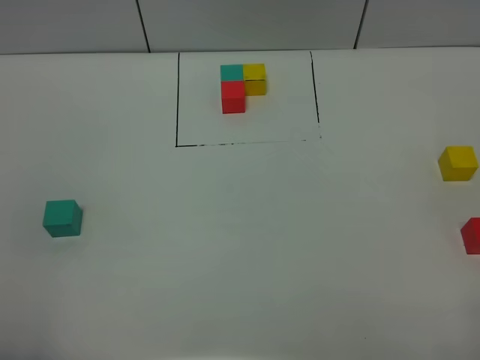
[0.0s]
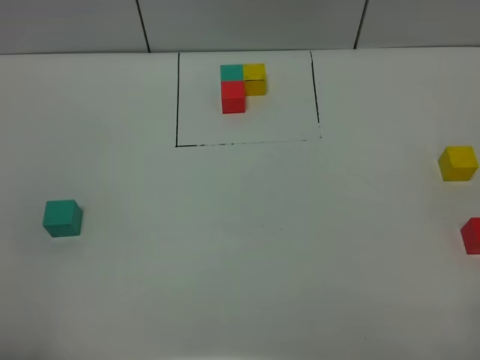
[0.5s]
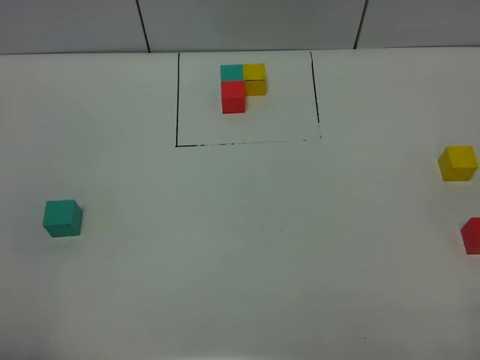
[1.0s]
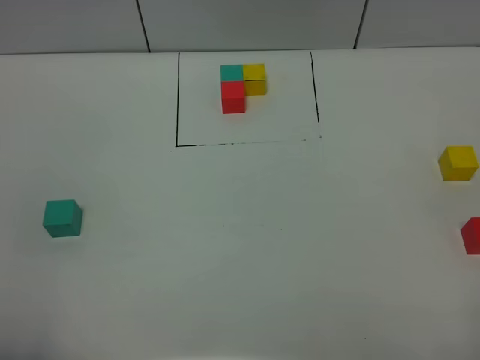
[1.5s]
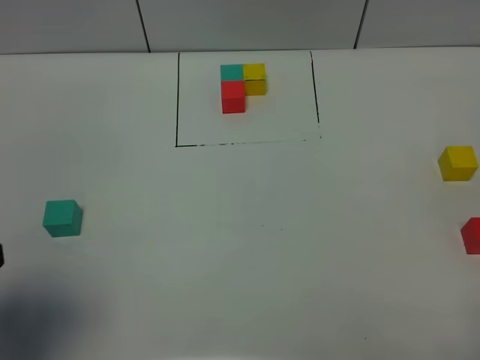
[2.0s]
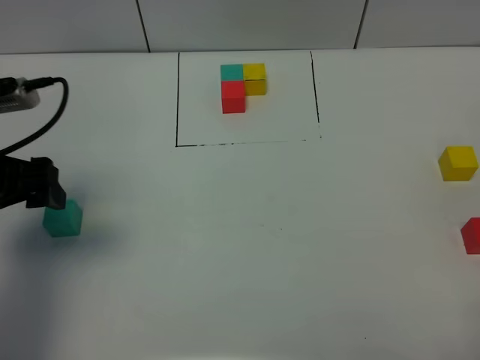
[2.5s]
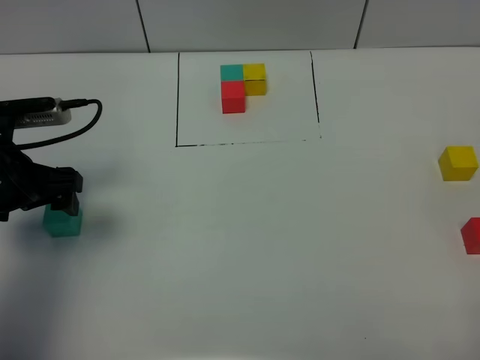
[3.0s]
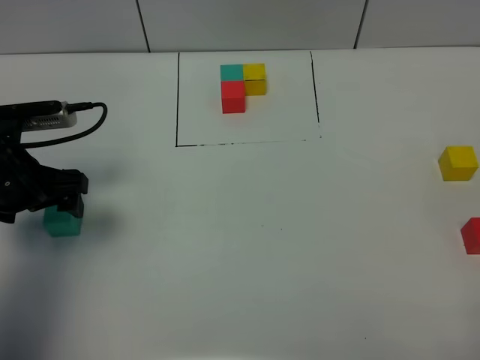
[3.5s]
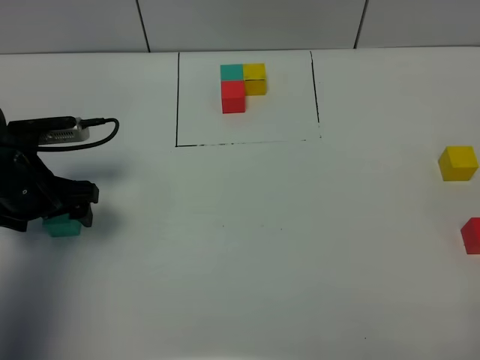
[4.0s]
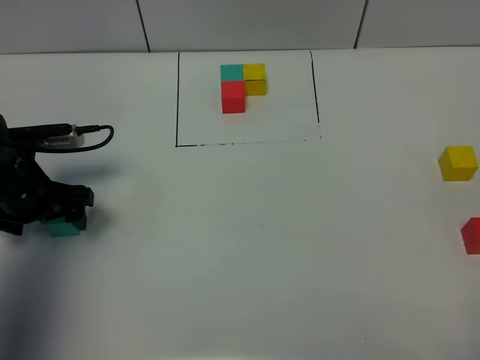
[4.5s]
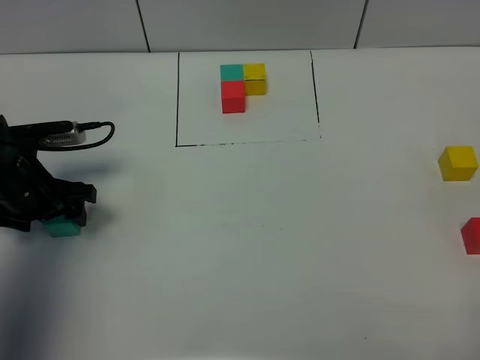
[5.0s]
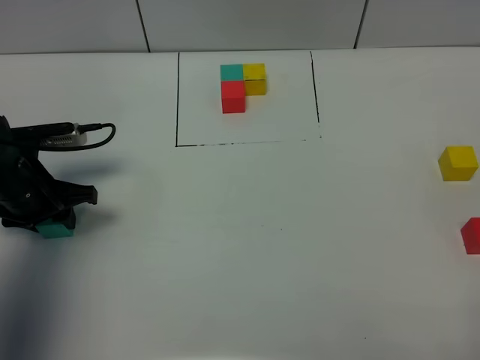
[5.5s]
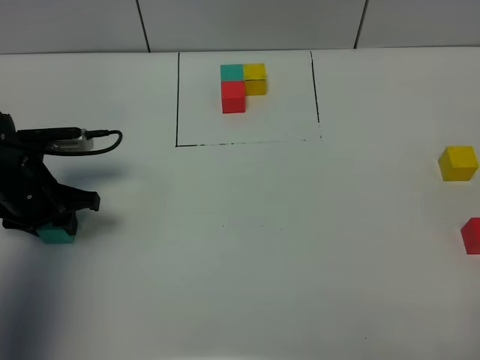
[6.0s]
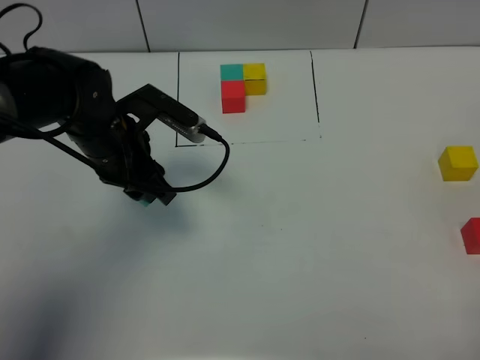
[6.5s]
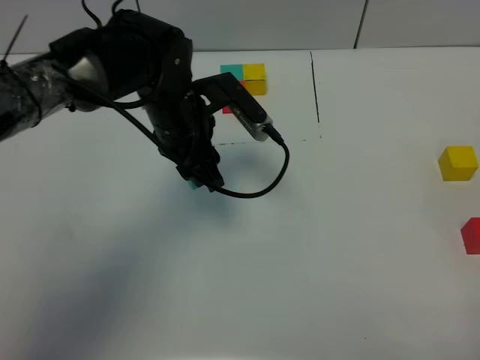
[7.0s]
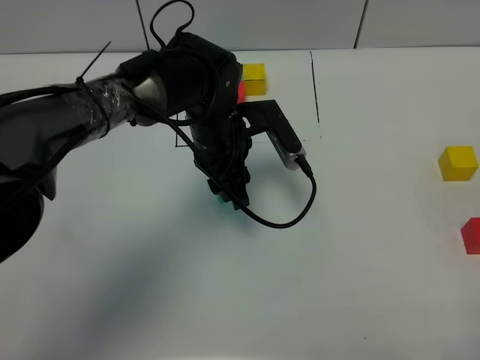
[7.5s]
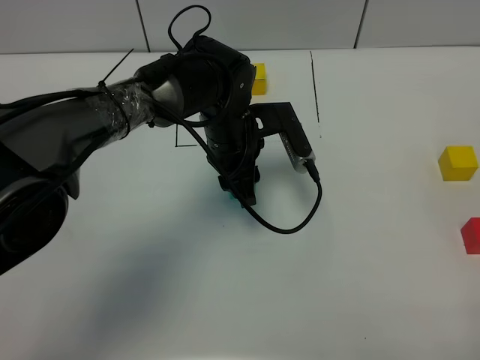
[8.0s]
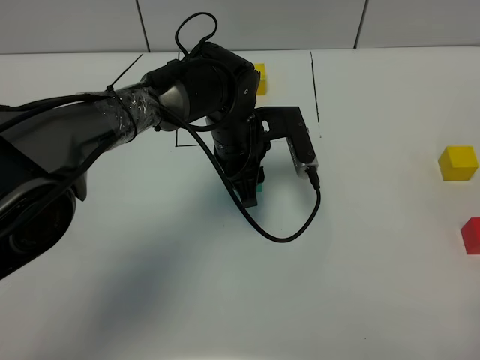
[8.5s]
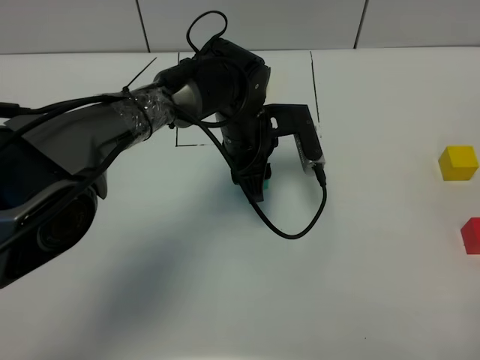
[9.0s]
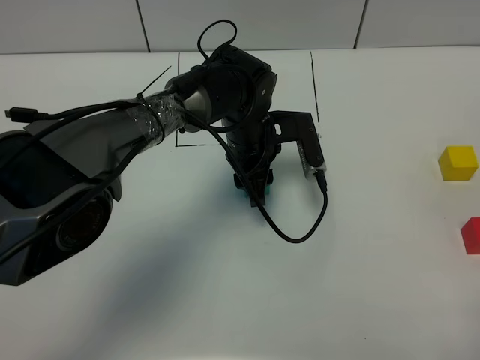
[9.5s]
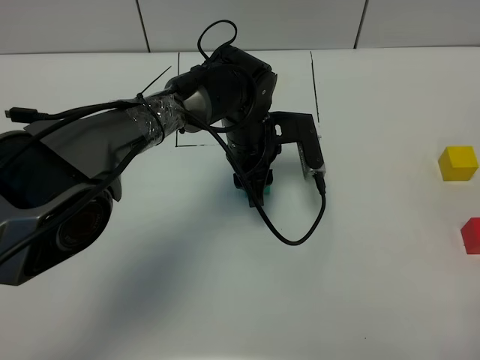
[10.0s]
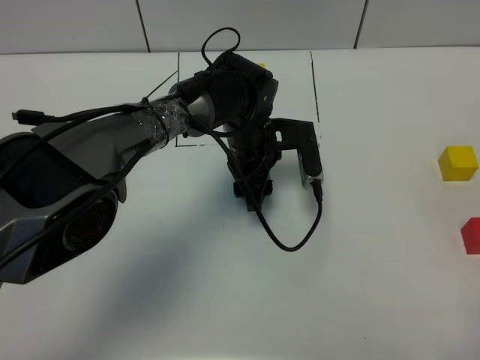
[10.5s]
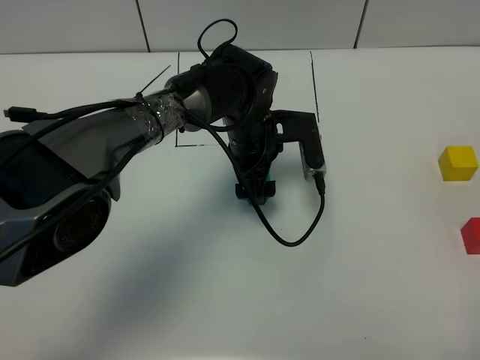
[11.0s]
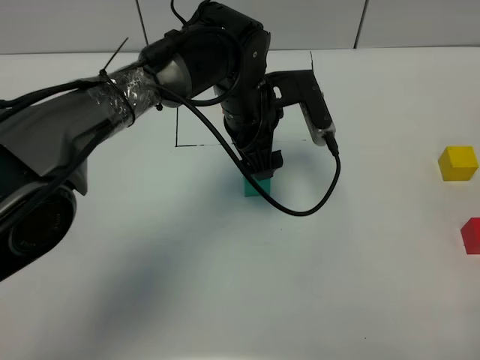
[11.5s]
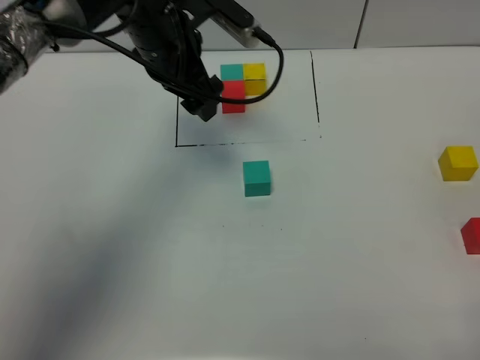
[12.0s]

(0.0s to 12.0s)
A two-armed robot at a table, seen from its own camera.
Task of the whole recording: According to the building block template in front, assemble the scattered blocks together.
Step, 0.0s - 10.5s: Put the green build block in the center of the table.
0.0s - 2.0s: The left gripper shifts approximately 10 cm forward, and opens its fingers.
2.0s - 4.0s: The left gripper travels forward and downward by some 25 cm.
4.0s - 6.0s: The left gripper closes its fingers.
6.0s - 8.0s: The left gripper is displaced to the right by roughly 25 cm.
8.0s - 10.0s: The grippers stay close to where they were, moving slightly.
10.0s - 12.0s: The left gripper is displaced upward and to the left by roughly 15 cm, and opens its fingers.

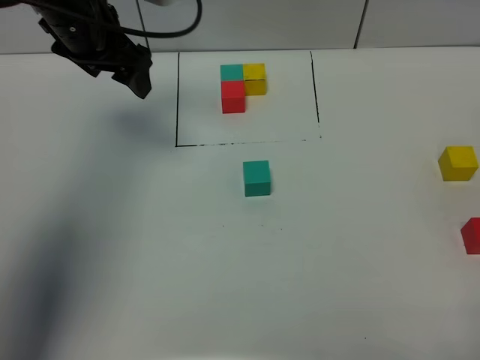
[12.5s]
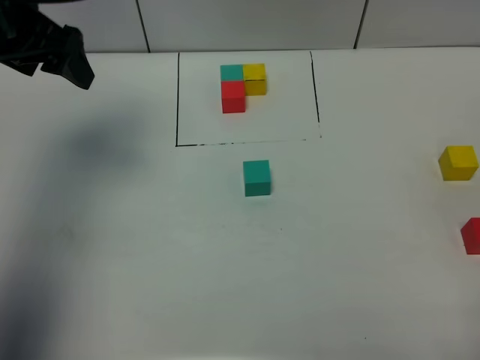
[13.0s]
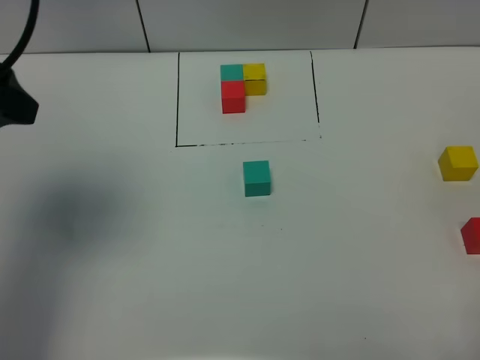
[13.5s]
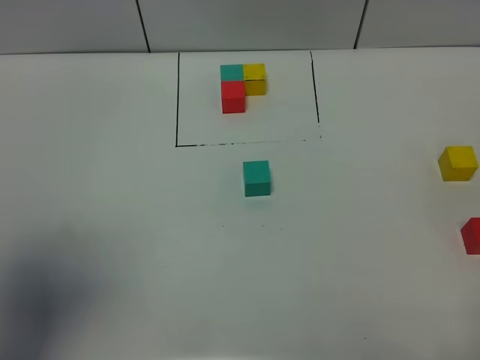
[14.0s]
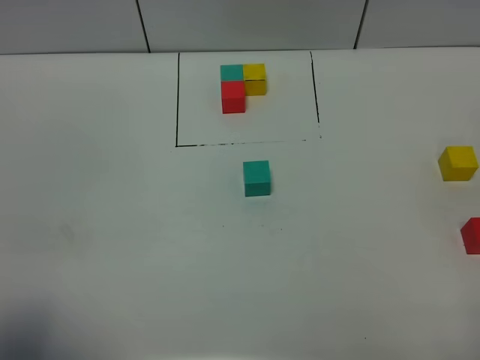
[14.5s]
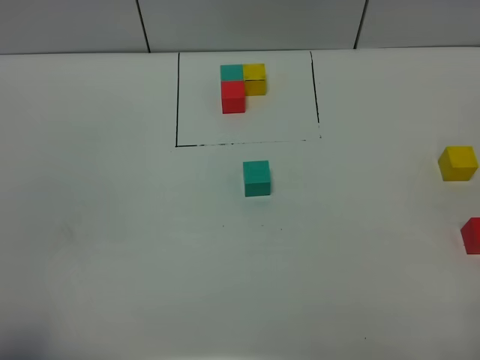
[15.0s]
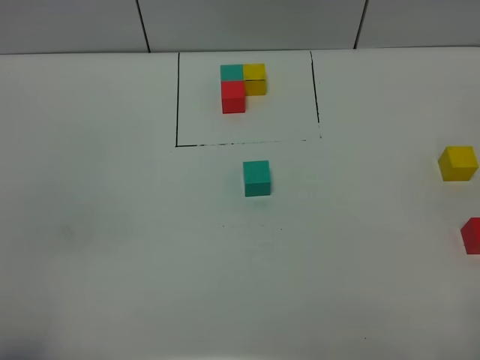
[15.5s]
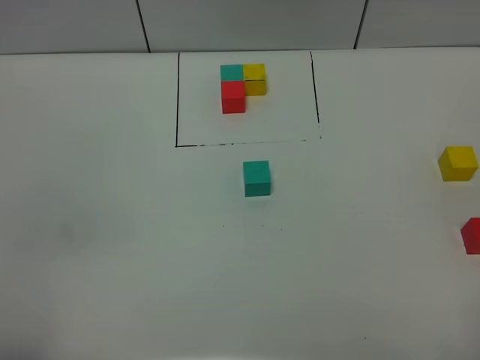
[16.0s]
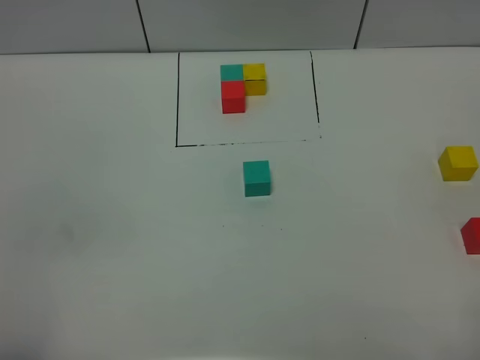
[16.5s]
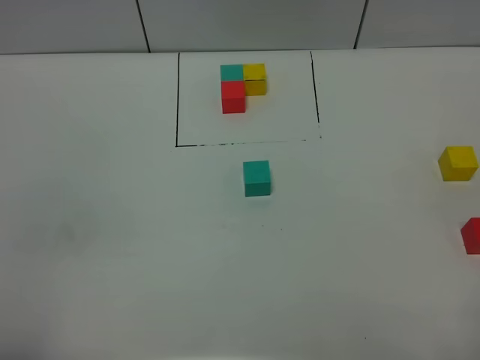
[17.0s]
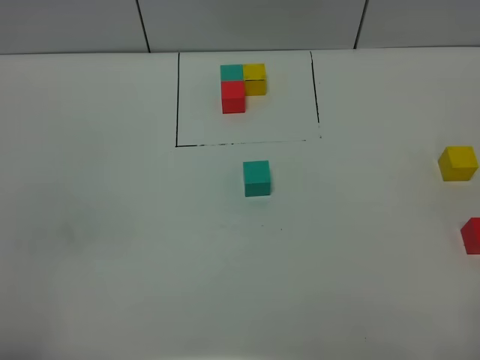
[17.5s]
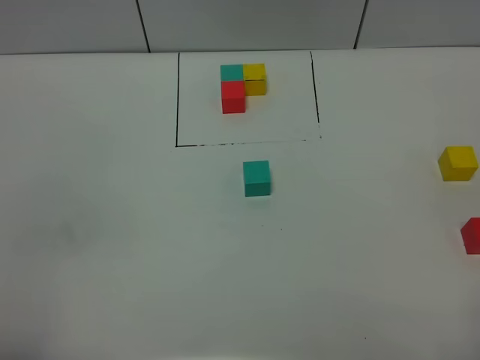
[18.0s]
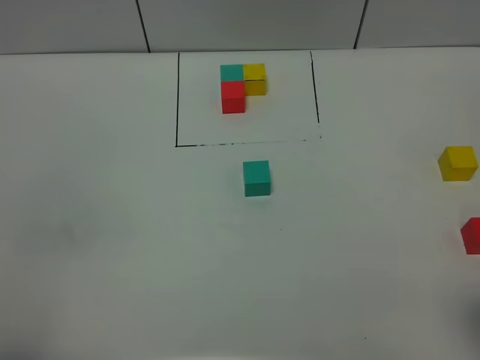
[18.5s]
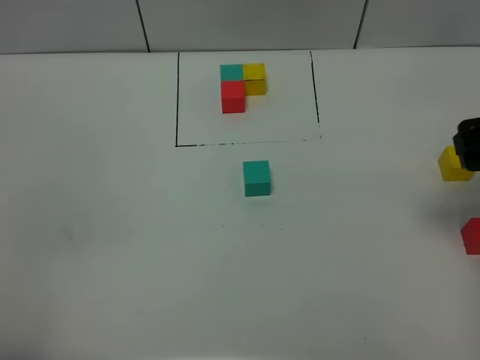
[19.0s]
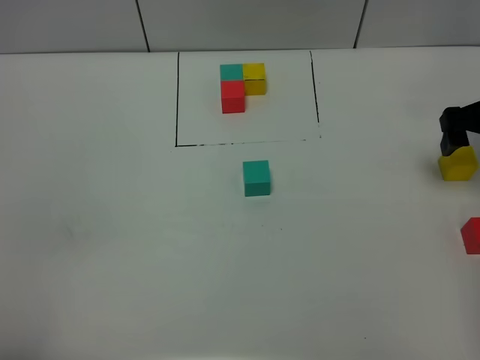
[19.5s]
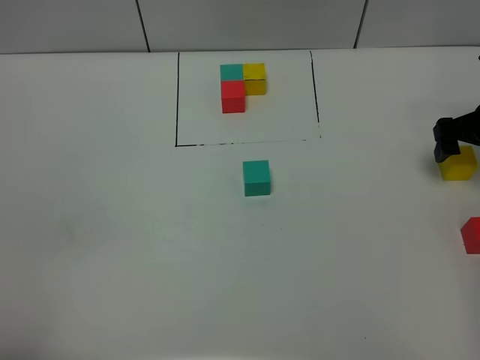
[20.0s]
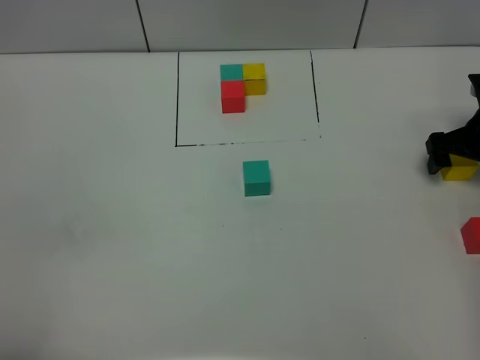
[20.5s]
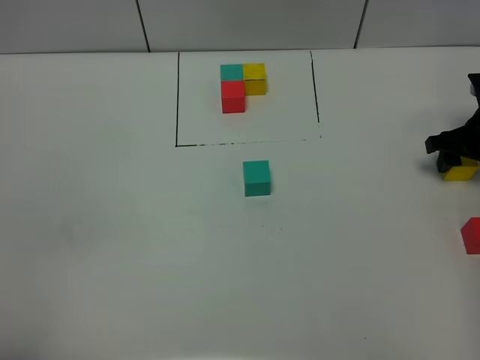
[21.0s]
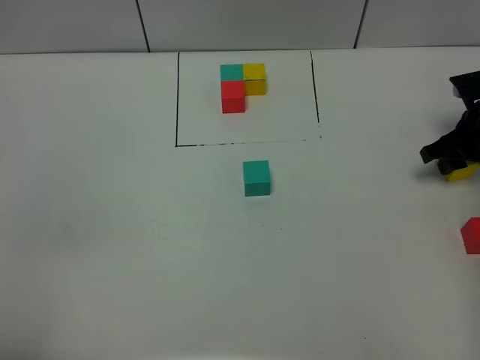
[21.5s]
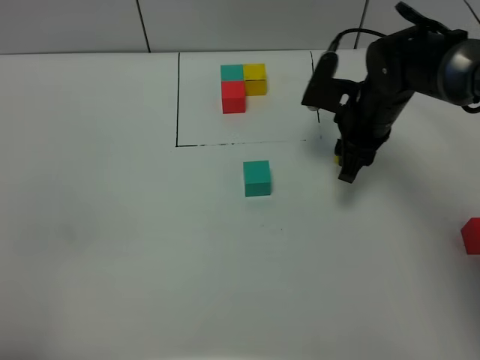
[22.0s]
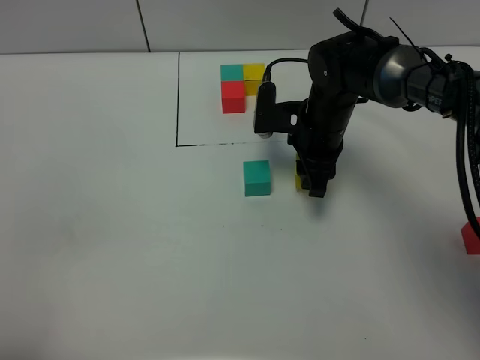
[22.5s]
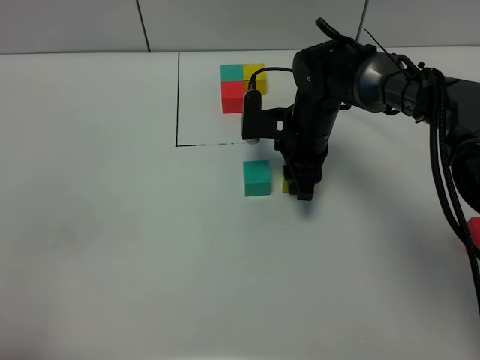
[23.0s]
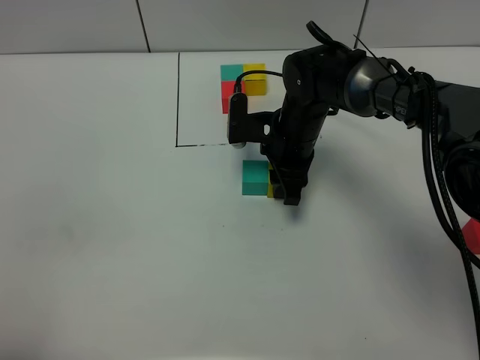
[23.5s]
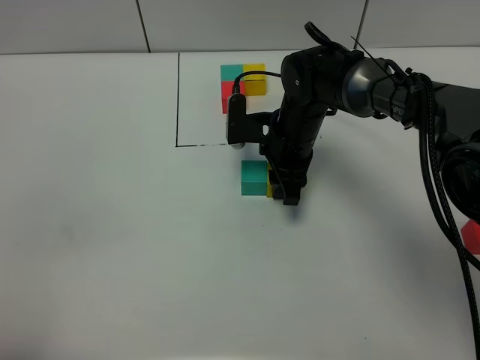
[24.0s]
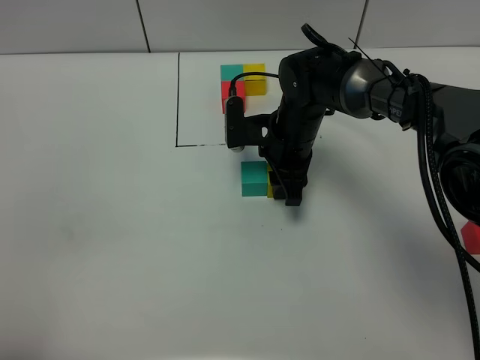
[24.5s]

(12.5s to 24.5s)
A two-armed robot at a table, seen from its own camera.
Task of the whole recording: According to the building block template in front, assemble the scattered blocks together.
12.5s - 14.5s: The left gripper shifts approximately 40 cm backward.
14.5s - 16.5s: The left gripper ends up about 5 cm from where it was.
18.5s - 20.5s: The right gripper moves forward and downward, some 35 cm.
20.5s - 22.5s: The right gripper is displaced to the left by approximately 25 cm, and closes.
22.5s - 24.5s: There are only small adjustments of the grippers.

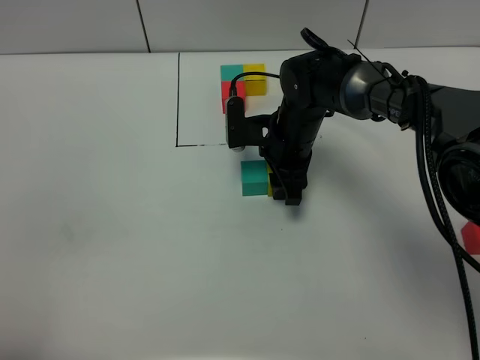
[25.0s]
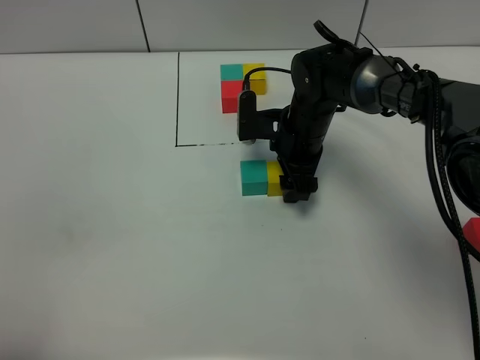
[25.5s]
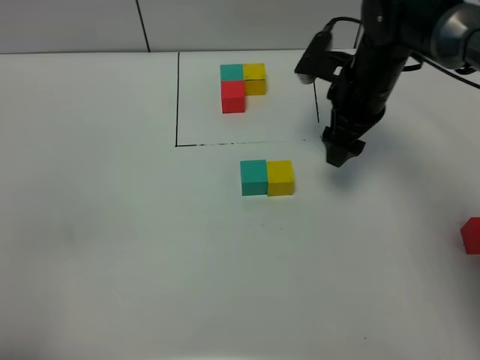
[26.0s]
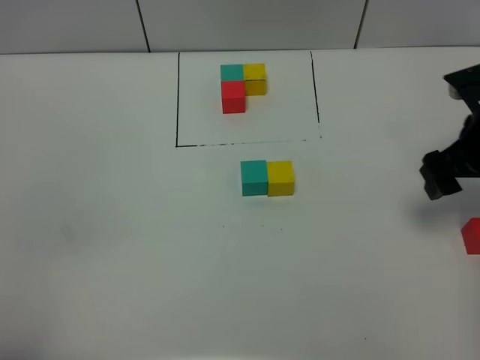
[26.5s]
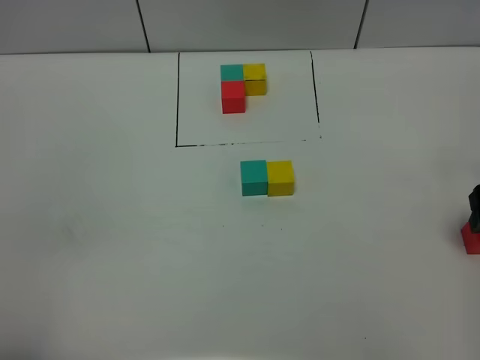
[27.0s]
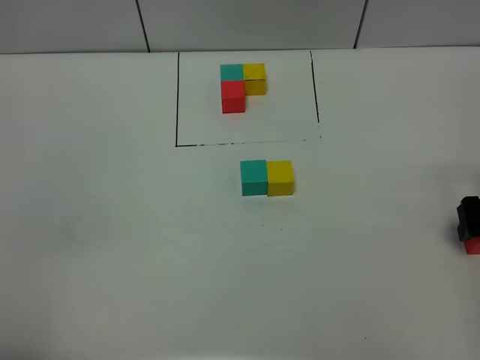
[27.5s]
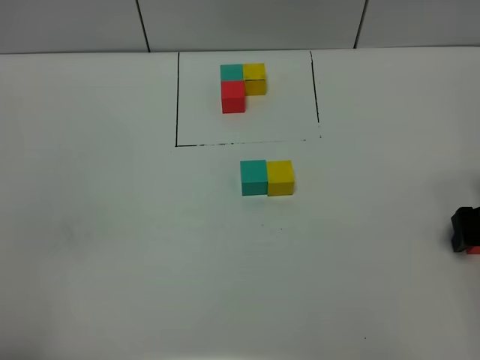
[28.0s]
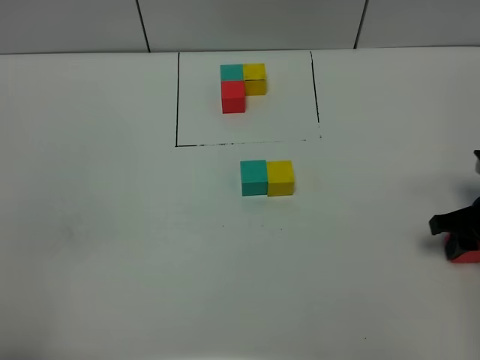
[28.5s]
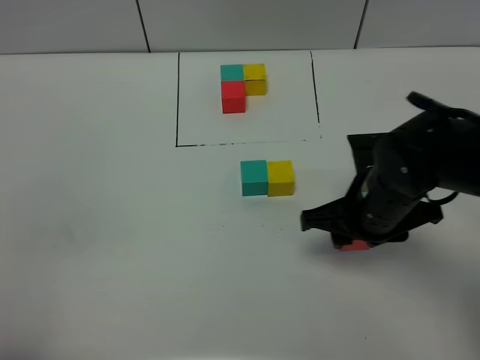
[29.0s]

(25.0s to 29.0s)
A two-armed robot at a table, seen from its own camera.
Task of the whole recording: According to the building block template in front, assemble the scattered blocks together.
25.0s - 27.0s: The right gripper heads to the right and backward, covering approximately 30 cm, and opens up.
27.0s - 29.0s: The right gripper heads to the left, covering approximately 20 cm, and closes its fingers.
